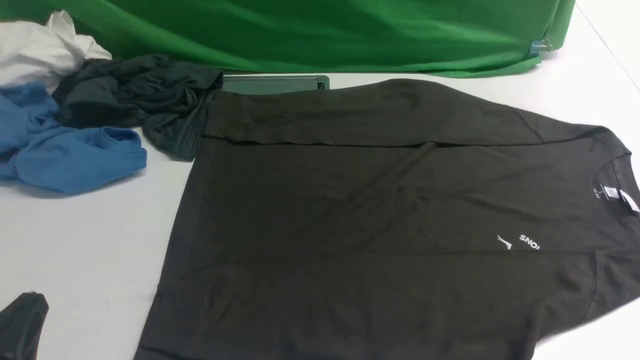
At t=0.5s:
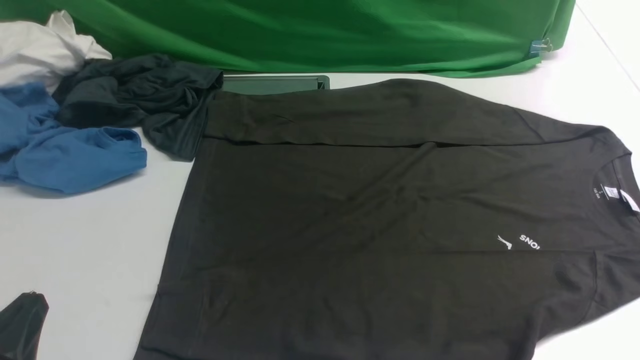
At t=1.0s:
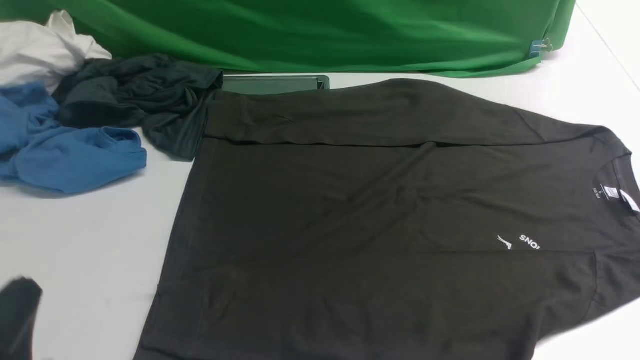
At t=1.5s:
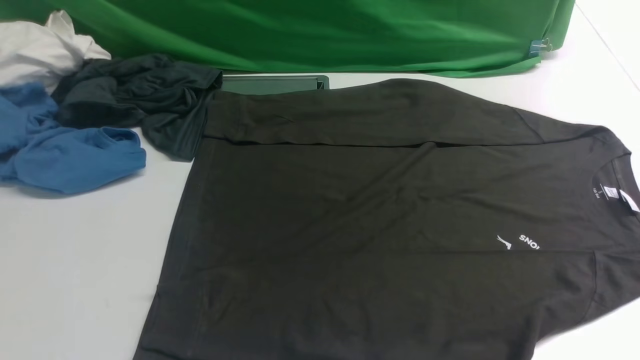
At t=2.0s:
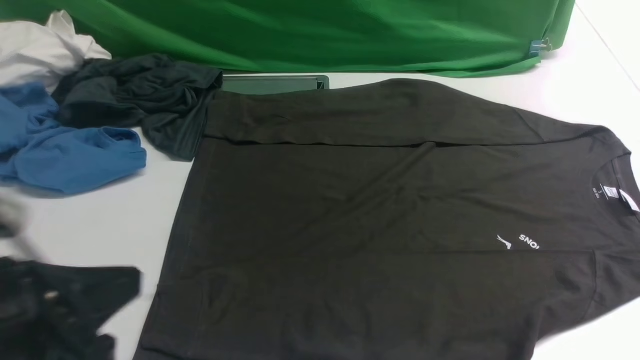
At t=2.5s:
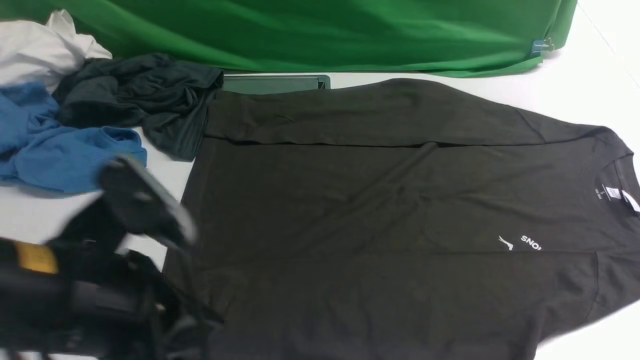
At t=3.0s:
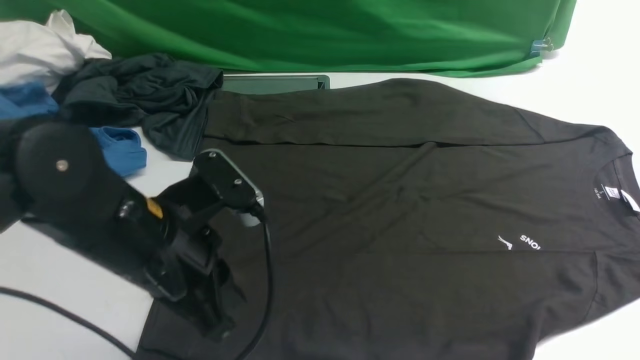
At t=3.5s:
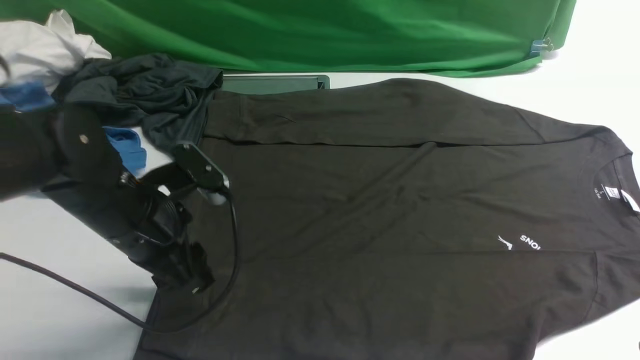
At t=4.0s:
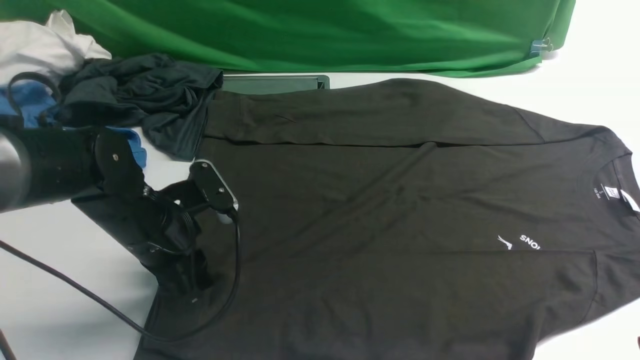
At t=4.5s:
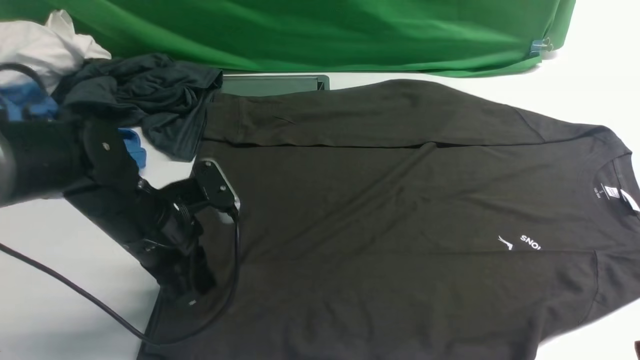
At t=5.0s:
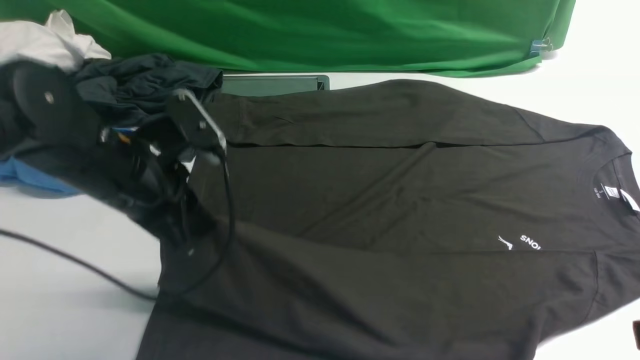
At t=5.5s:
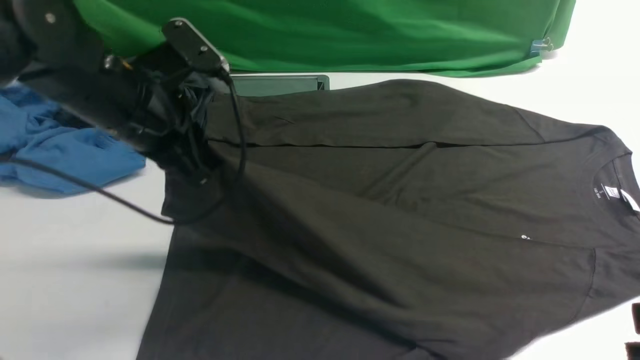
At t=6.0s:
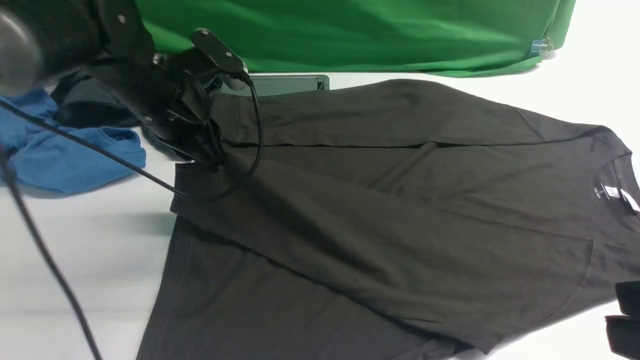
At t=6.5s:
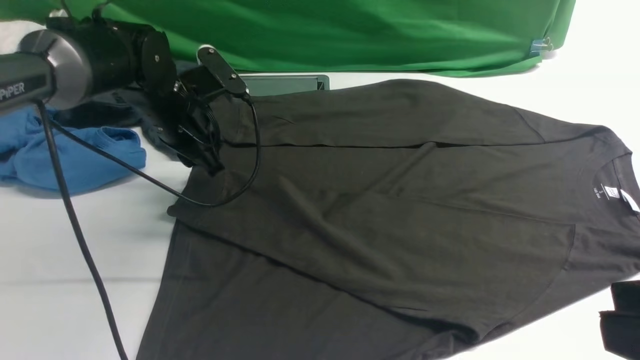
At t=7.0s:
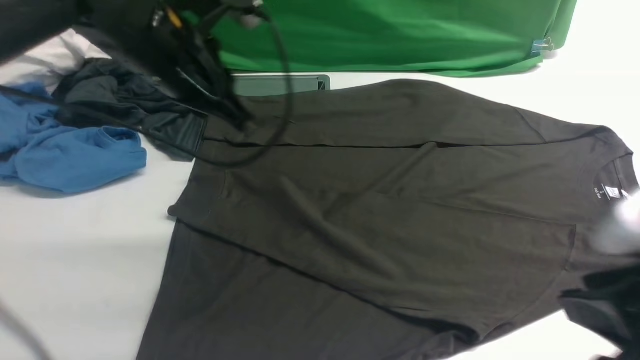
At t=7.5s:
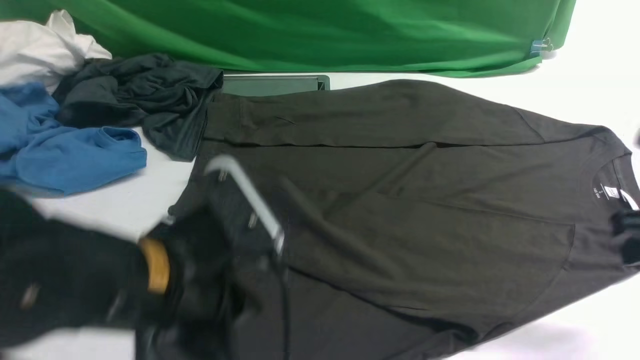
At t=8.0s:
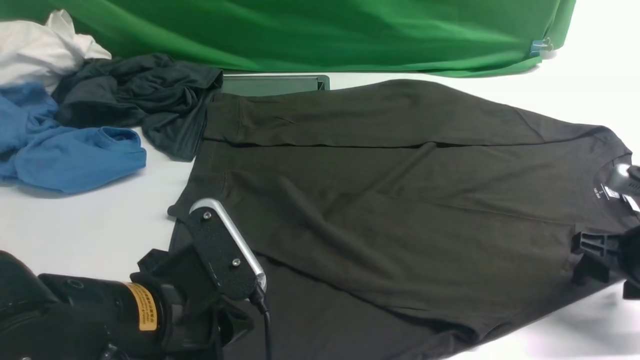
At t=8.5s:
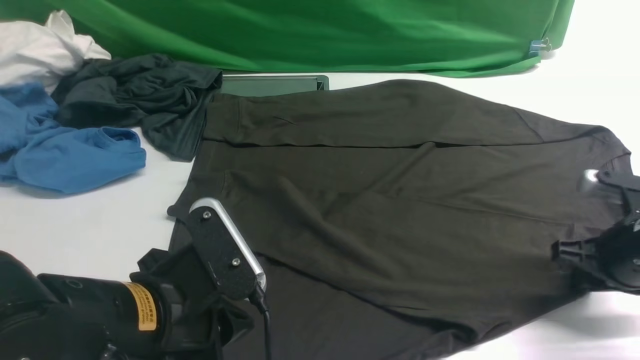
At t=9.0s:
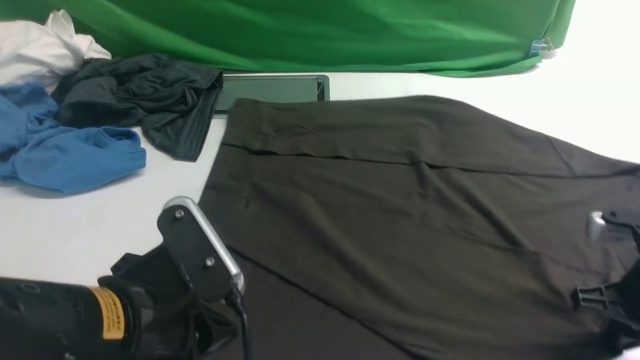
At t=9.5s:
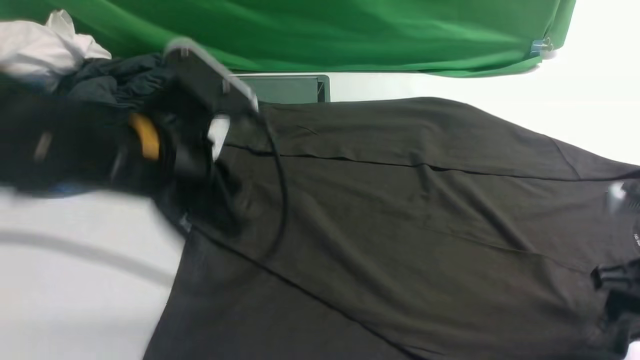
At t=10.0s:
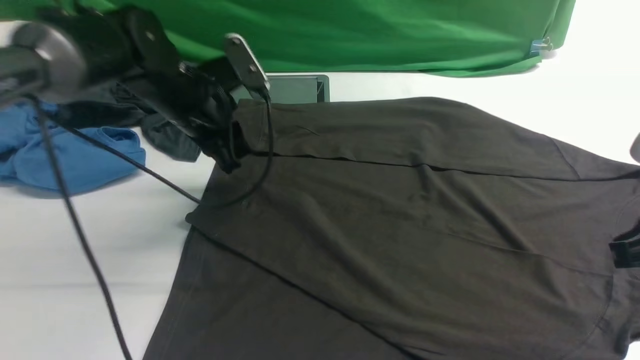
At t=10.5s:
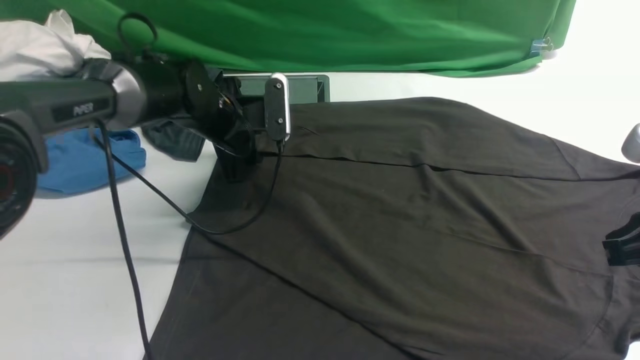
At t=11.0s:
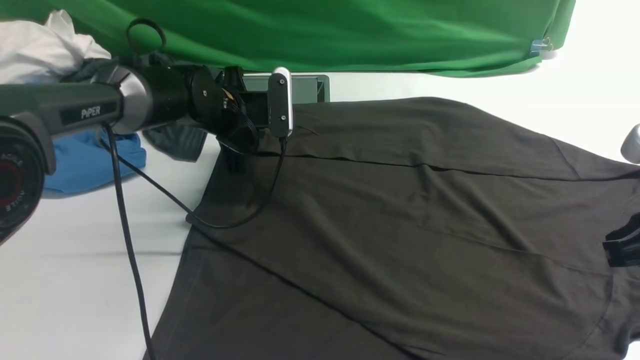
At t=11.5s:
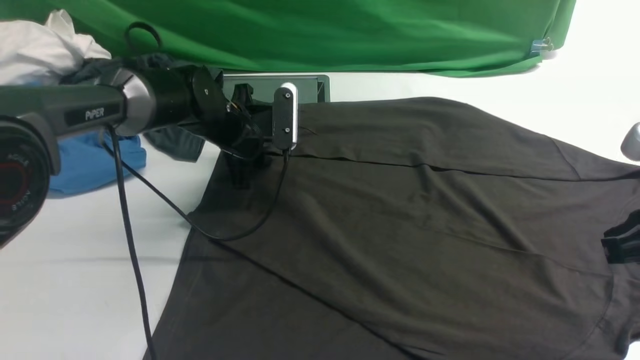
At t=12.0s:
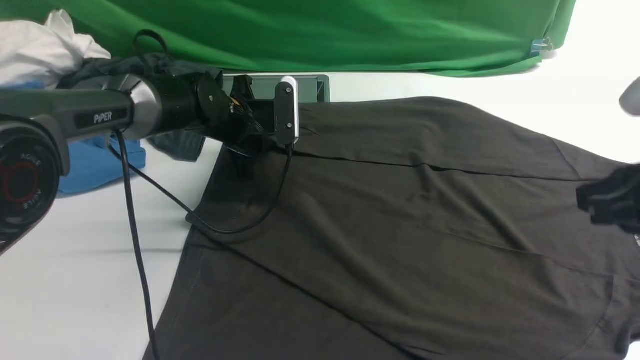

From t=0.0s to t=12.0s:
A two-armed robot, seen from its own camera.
Step, from t=0.0s to t=4.5s: use the left arm to clamp the cuff closest to it.
Step, from t=5.0s to t=6.5s: use the left arm to drag and place the cuff at the centered position on the left edge of the fabric.
From t=0.0s to t=2.0s: The left gripper travels upward by roughly 10 cm.
From t=2.0s to t=4.0s: The left gripper travels forward and downward by some 25 cm, and opens. Meanwhile the right gripper shifts some 20 cm upward and to the left.
From t=4.0s to t=6.0s: The left gripper is displaced forward and upward by some 15 cm, and closes.
From t=6.0s to t=8.0s: The left gripper is displaced backward by about 25 cm, and opens, then closes once more. The right gripper is displaced downward, forward and to the right by approximately 30 cm, and opens its fingers.
From t=8.0s to t=10.0s: The left gripper shifts about 25 cm forward, and opens up; the right gripper shifts some 15 cm upward and backward, and closes its fingers.
From t=10.0s to t=12.0s: The left gripper moves downward, some 5 cm, and opens, then closes again.

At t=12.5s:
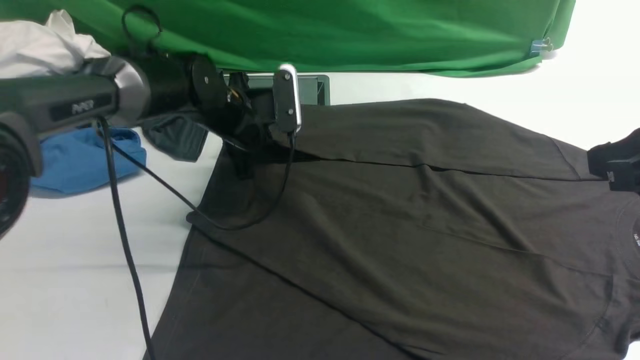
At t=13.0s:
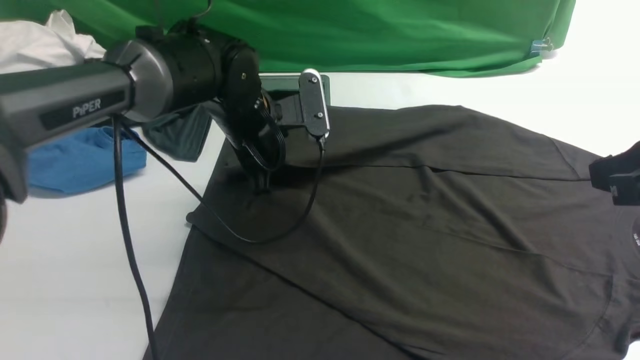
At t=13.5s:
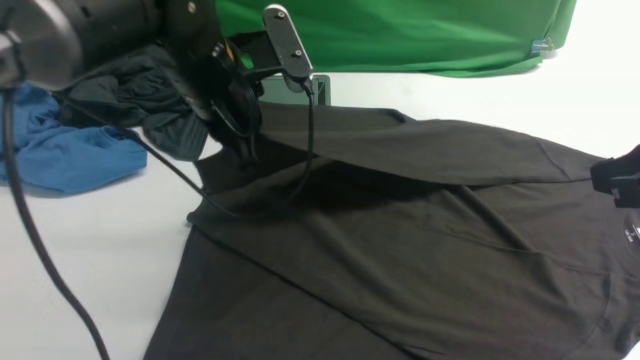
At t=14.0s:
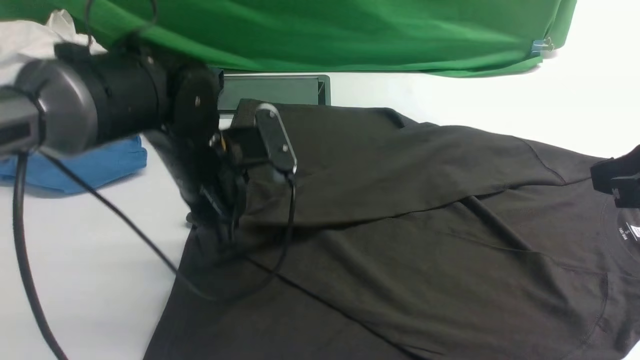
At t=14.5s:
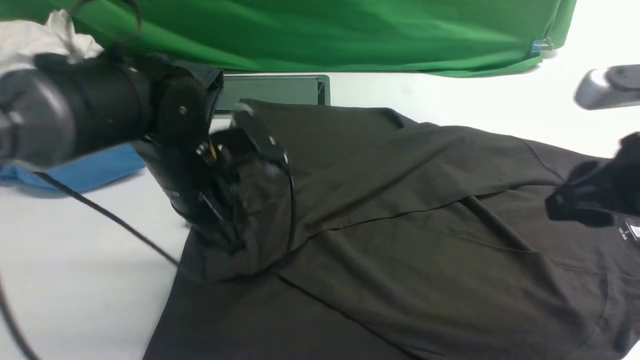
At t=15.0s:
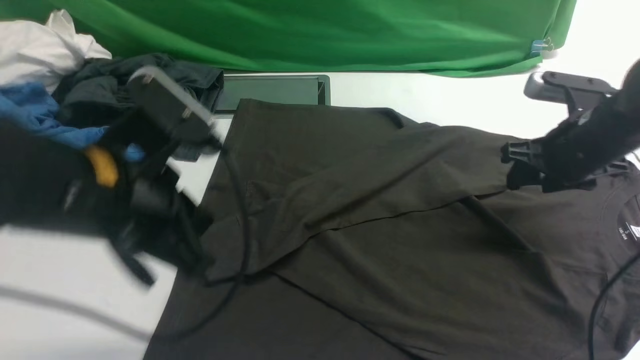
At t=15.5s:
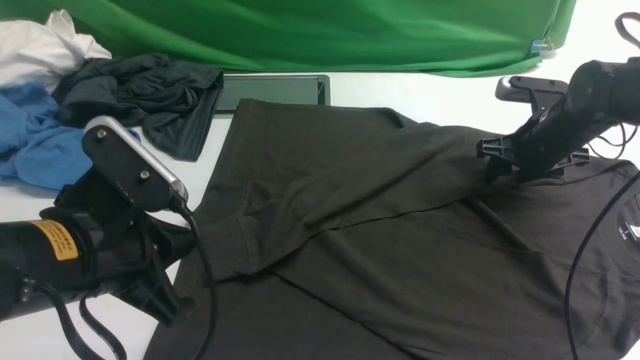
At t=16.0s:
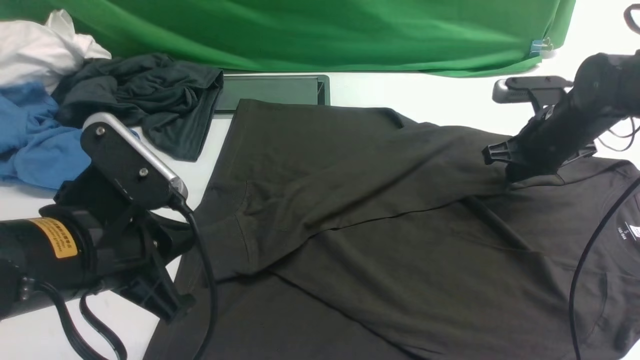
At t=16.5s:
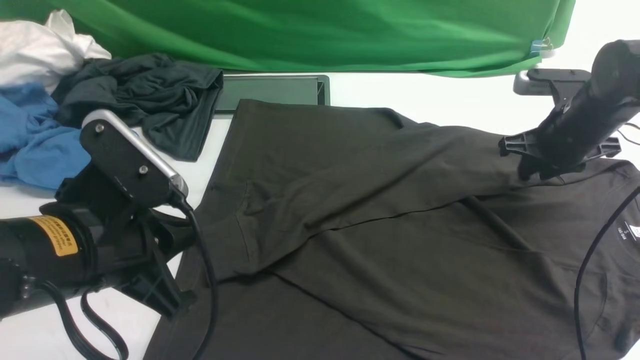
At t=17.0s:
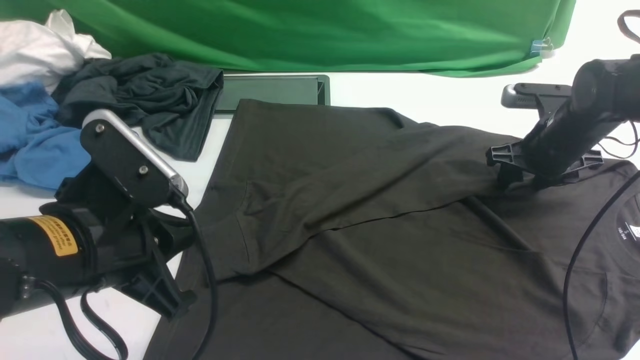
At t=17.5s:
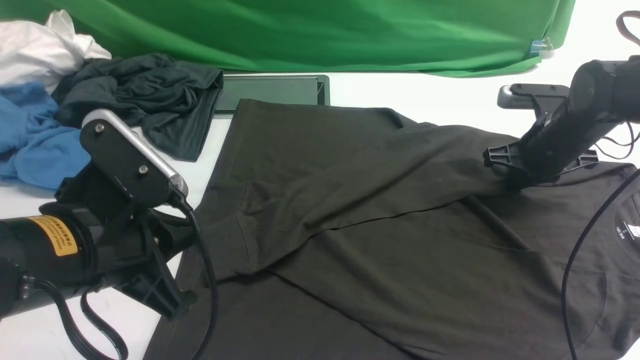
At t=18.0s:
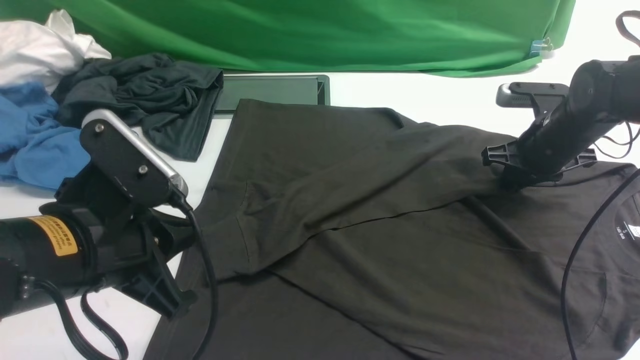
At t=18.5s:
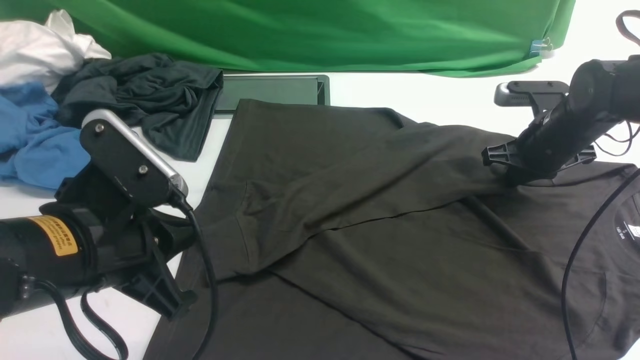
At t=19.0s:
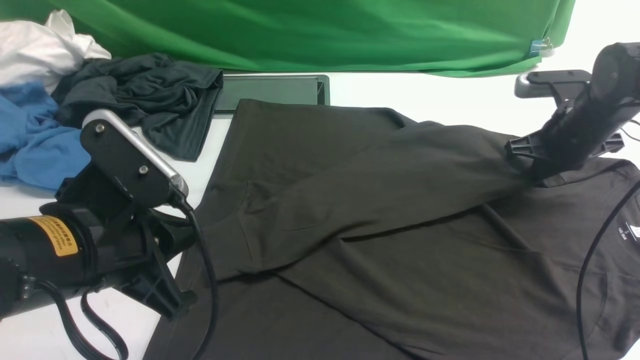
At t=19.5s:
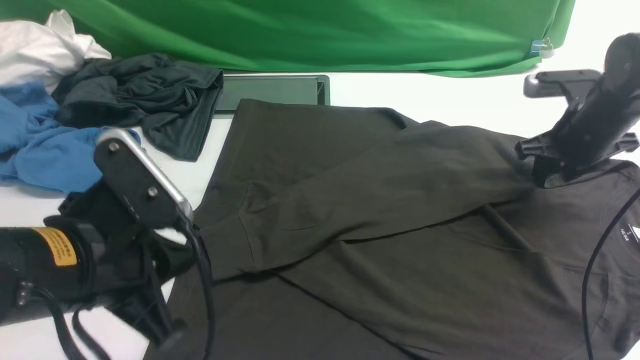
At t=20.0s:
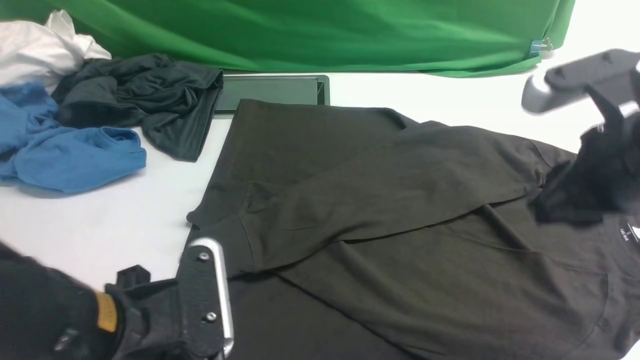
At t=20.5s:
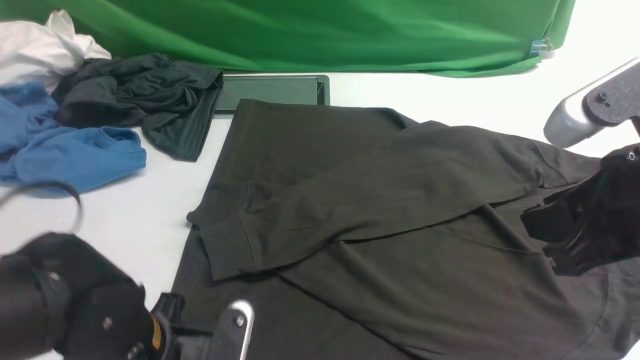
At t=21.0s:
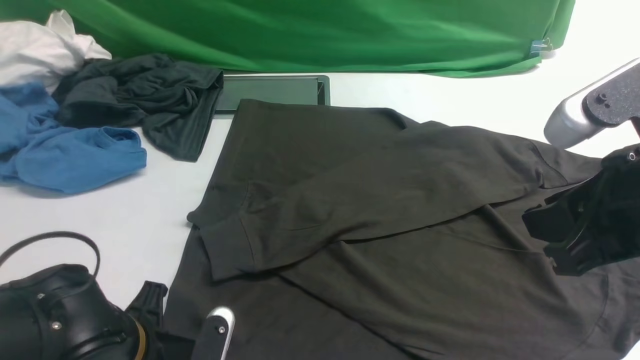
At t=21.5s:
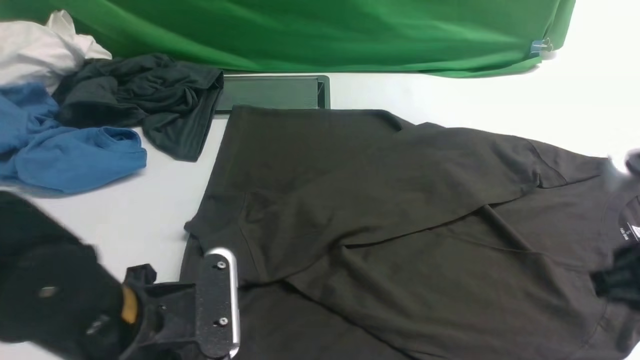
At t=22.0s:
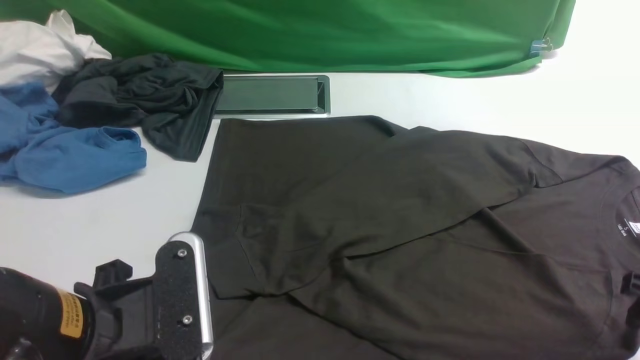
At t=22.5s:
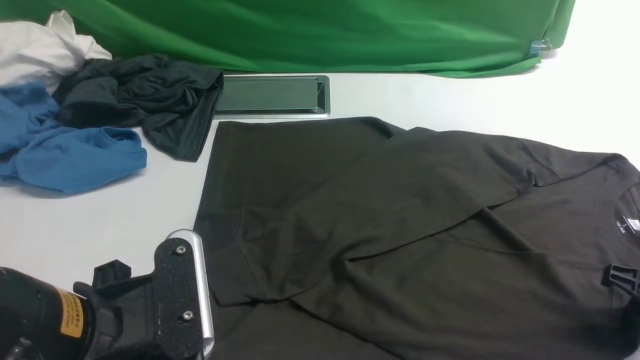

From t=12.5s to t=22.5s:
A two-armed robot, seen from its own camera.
Step, from t=13.0s to t=14.5s: use the left arm to drag and drop the cuff onto the cuff closest to the left arm.
From t=12.5s to t=14.5s: The right gripper travels forward by some 5 cm. The left gripper moves backward and upward, some 15 cm, and opens.
From t=14.5s to t=16.5s: The right gripper moves forward and downward, about 20 cm, and closes, then reopens, while the left gripper moves backward, roughly 10 cm, and closes up.
From t=16.5s to t=18.5s: The right gripper closes its fingers.
From t=18.5s to t=20.5s: The right gripper is displaced backward and upward by some 30 cm, and opens up, while the left gripper shifts approximately 10 cm downward, and opens.
From t=20.5s to t=22.5s: The left gripper goes approximately 10 cm upward, and closes its fingers. The right gripper is displaced downward and to the right by about 20 cm, and opens, then closes once more.
